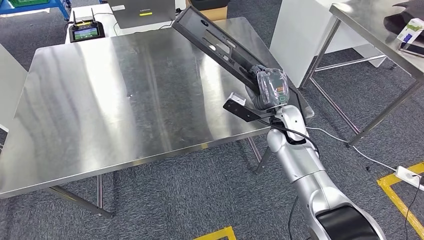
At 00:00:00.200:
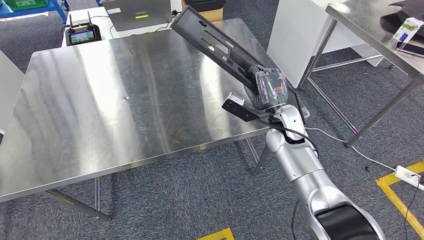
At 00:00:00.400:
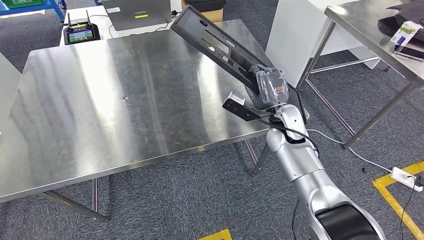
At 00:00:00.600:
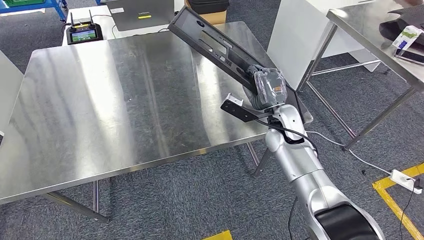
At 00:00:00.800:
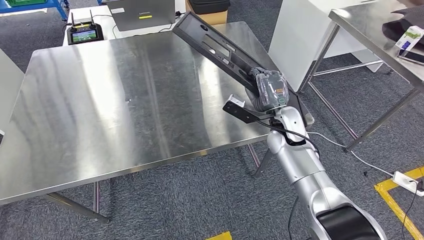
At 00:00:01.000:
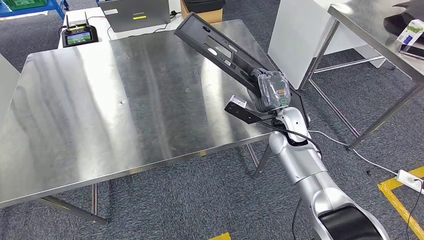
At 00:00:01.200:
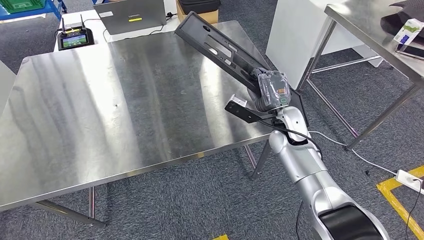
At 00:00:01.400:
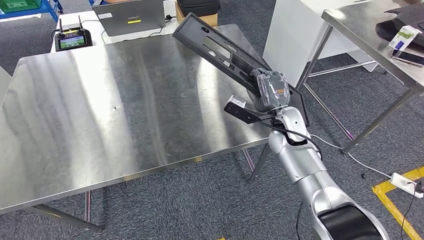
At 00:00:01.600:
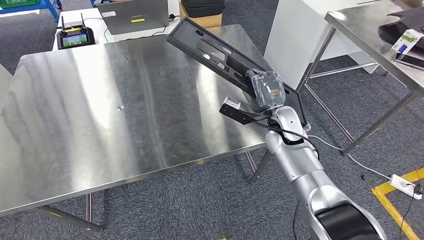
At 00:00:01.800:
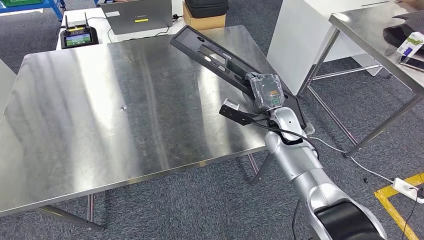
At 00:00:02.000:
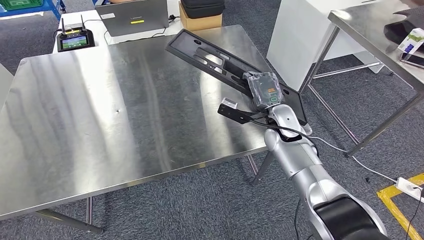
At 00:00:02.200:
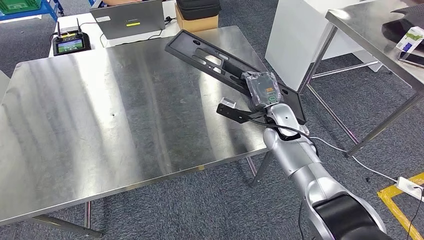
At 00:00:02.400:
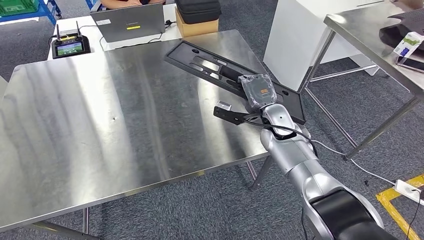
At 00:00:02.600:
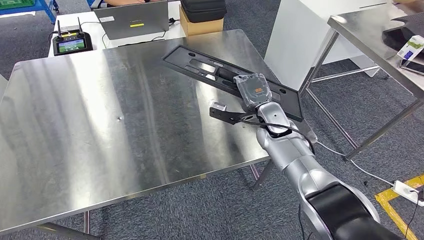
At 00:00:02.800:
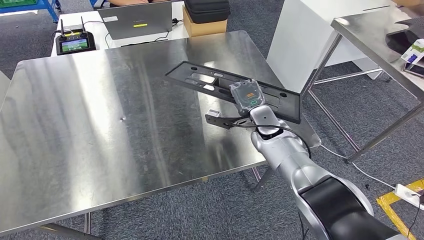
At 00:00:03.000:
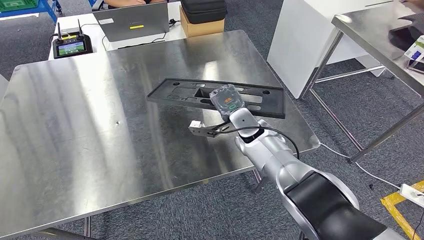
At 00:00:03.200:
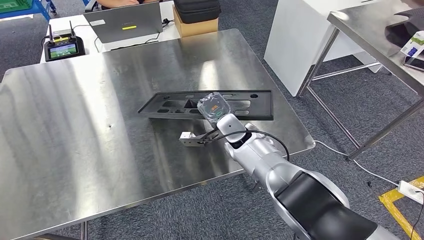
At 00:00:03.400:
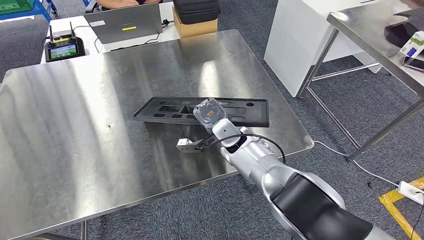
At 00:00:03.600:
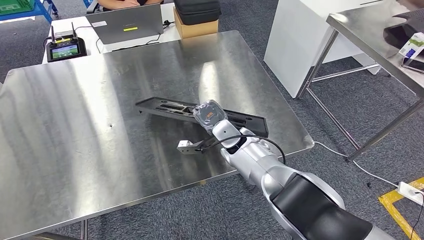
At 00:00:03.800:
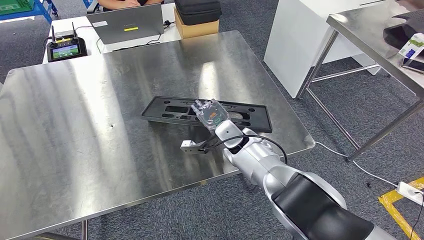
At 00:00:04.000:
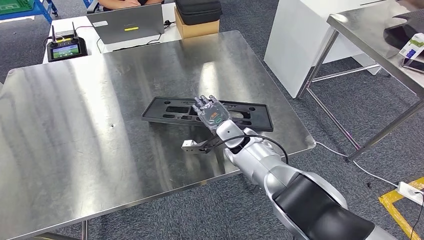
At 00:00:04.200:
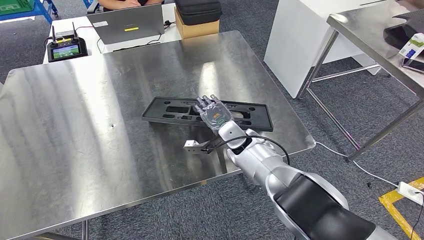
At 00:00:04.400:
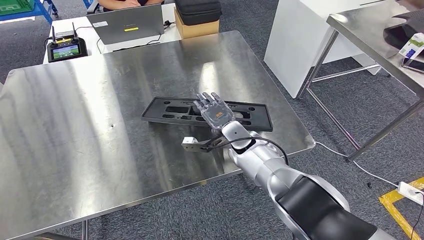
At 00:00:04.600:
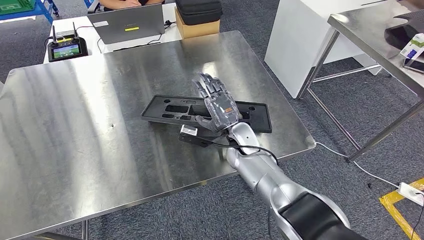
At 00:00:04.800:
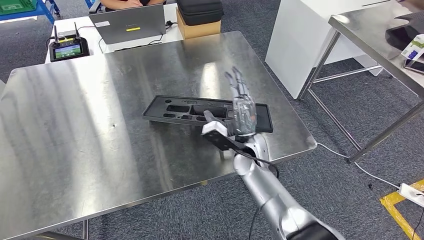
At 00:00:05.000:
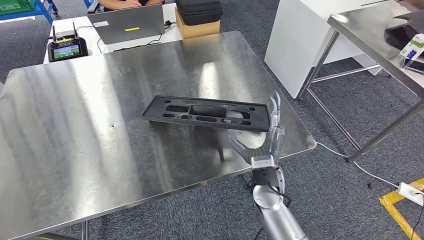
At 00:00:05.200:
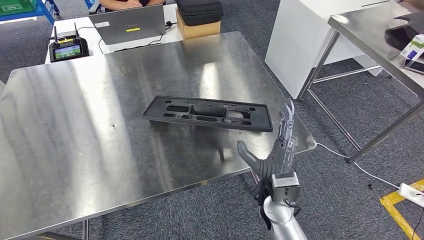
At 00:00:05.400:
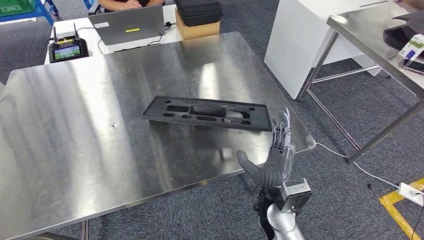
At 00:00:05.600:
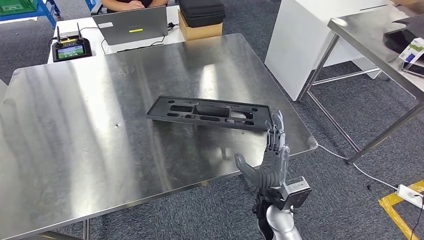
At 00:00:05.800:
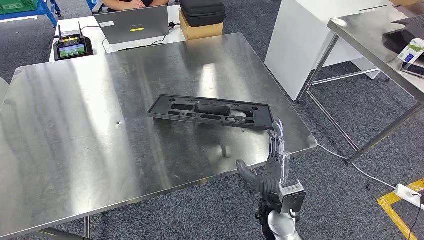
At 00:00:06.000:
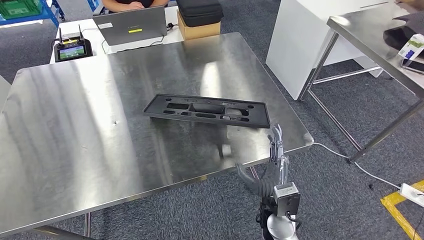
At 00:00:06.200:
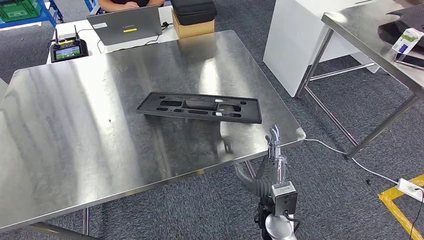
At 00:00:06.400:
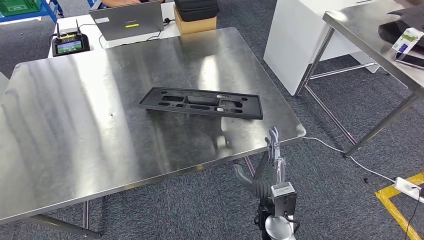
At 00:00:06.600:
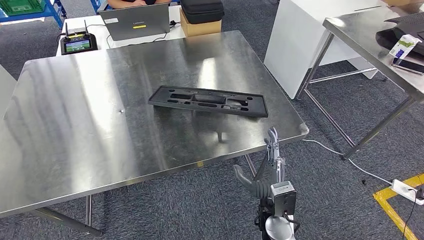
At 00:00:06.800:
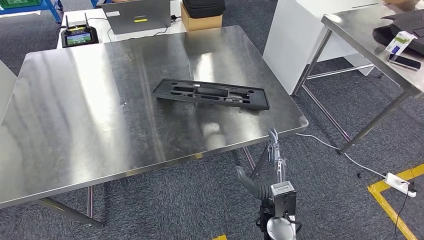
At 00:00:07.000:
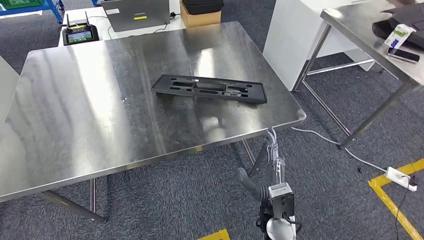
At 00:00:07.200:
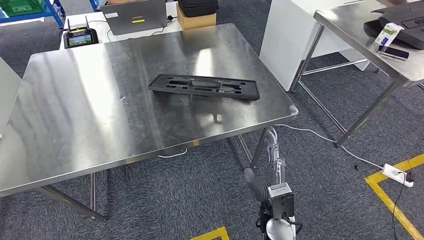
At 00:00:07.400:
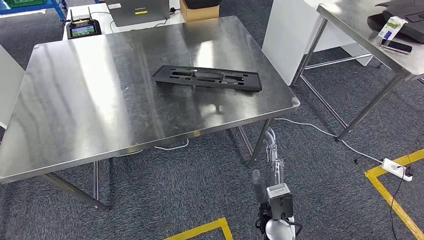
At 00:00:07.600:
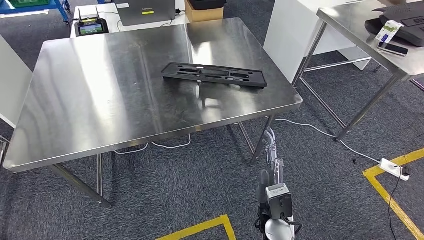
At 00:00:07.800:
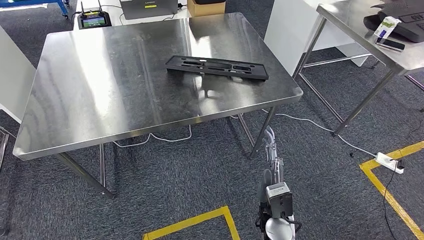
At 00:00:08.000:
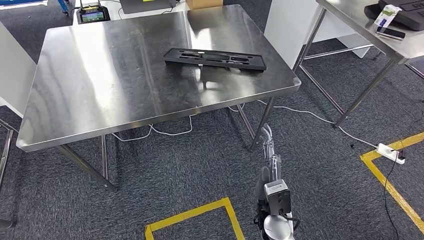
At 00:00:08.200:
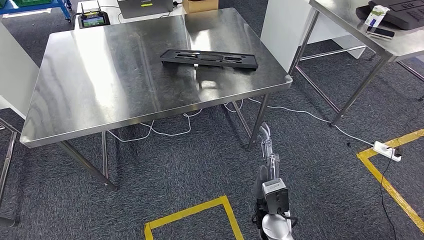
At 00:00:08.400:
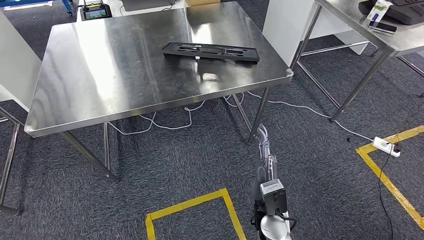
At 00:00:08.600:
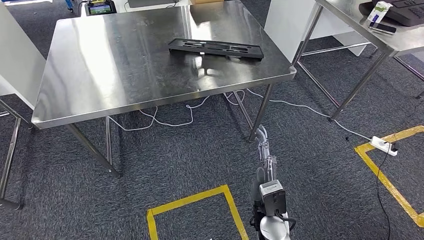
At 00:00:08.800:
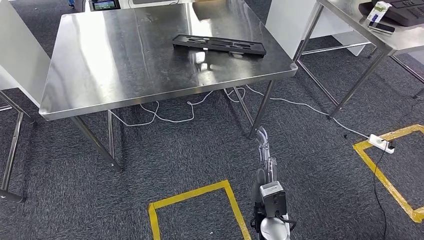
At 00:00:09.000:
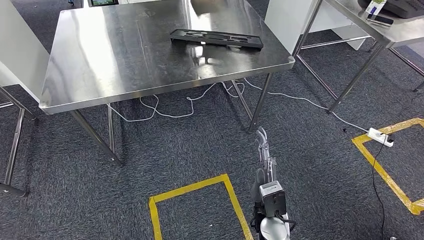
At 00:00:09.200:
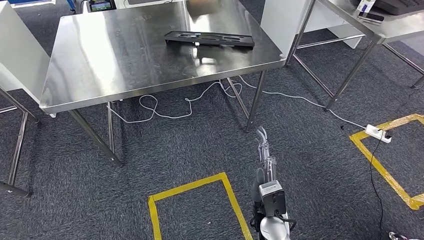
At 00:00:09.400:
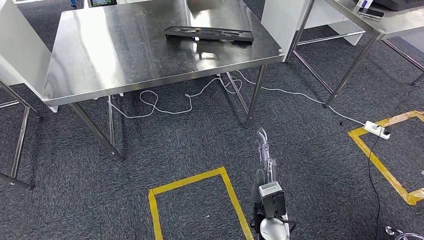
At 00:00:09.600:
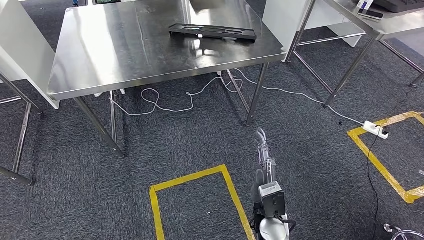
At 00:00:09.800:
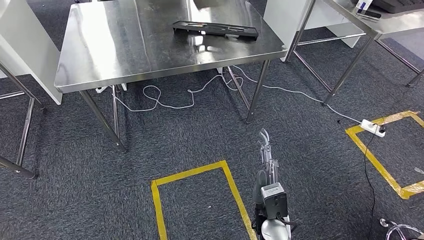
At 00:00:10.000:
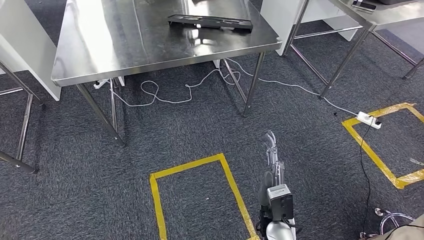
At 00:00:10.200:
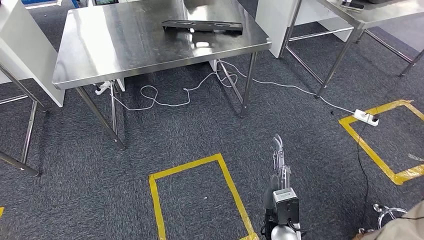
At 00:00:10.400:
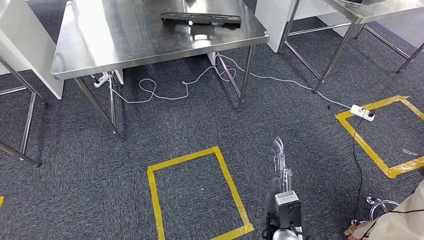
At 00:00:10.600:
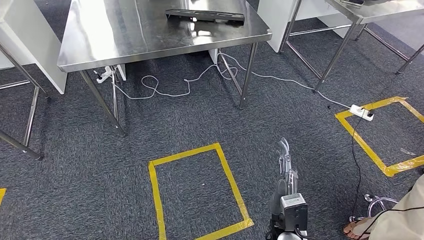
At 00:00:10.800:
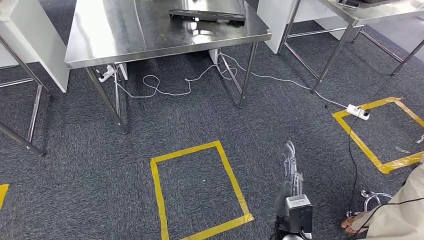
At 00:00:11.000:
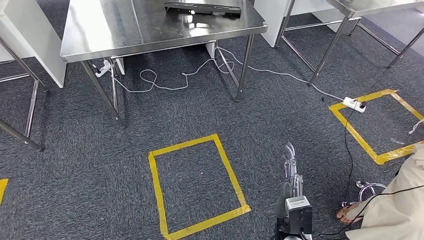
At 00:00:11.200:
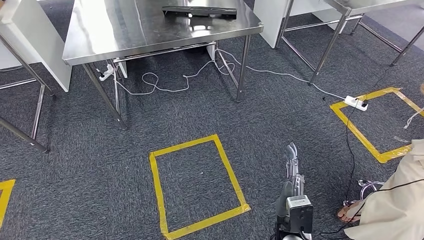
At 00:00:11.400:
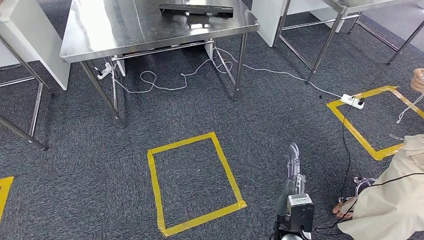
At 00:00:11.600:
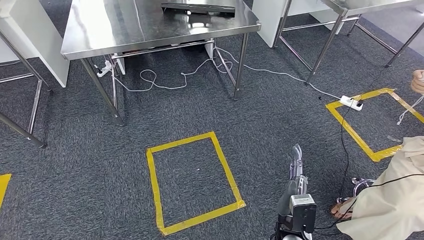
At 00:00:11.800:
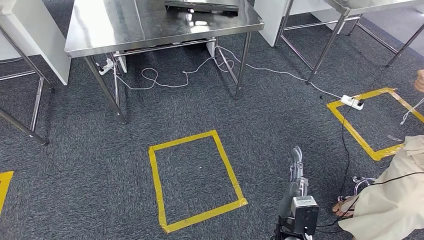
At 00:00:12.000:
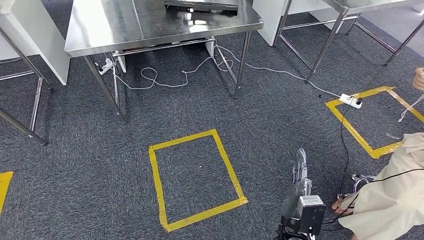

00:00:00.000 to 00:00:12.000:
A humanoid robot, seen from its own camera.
Step, 00:00:00.000 to 00:00:09.000: Insert the large material into the corresponding slot on the workbench.

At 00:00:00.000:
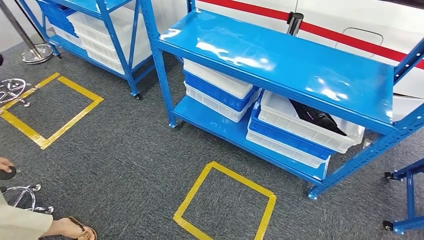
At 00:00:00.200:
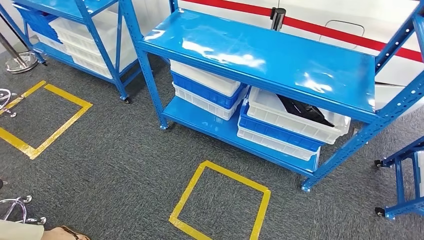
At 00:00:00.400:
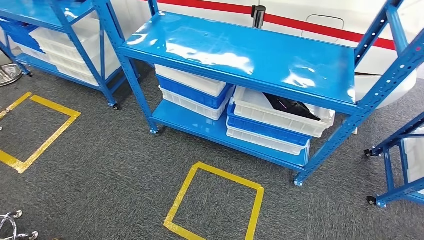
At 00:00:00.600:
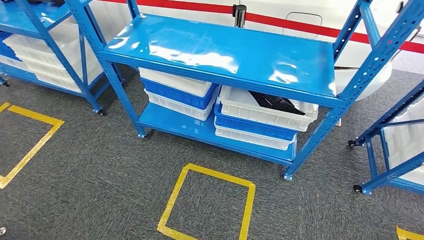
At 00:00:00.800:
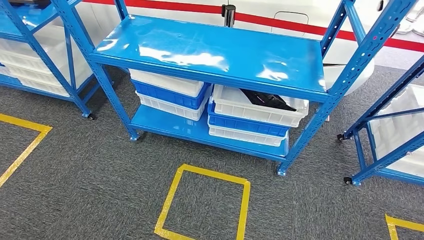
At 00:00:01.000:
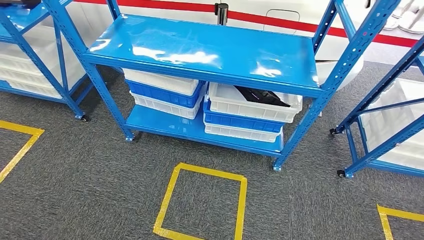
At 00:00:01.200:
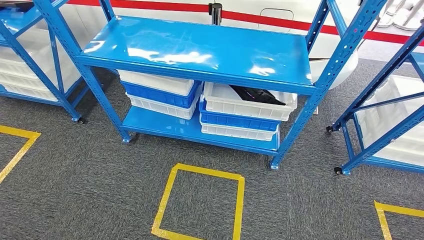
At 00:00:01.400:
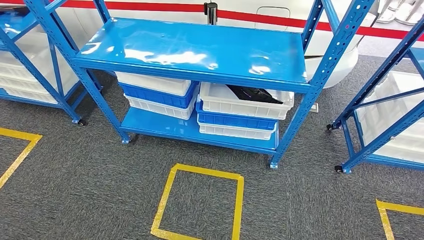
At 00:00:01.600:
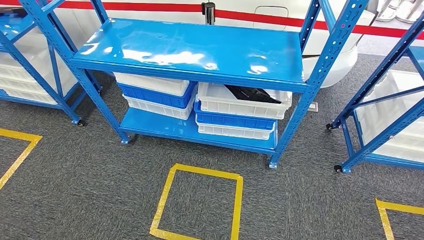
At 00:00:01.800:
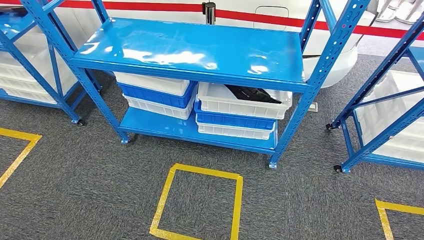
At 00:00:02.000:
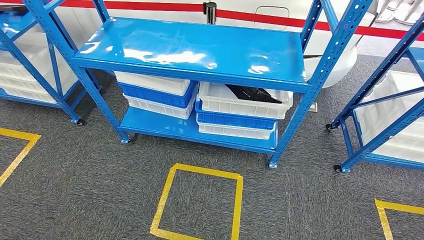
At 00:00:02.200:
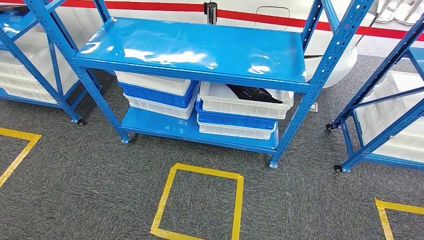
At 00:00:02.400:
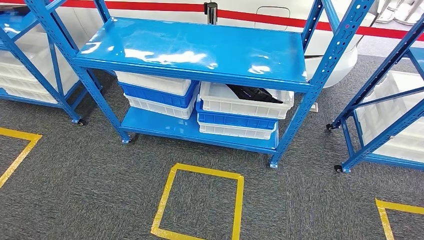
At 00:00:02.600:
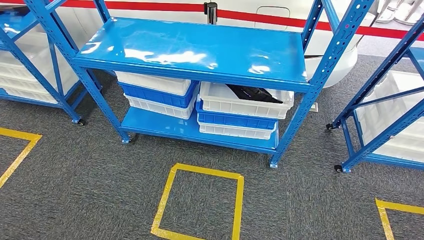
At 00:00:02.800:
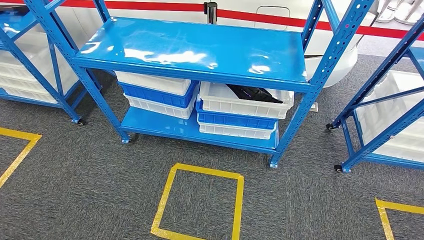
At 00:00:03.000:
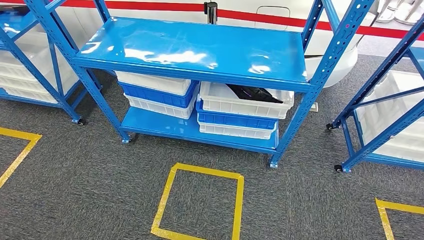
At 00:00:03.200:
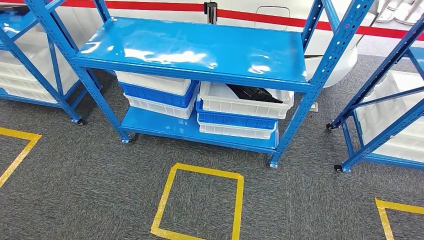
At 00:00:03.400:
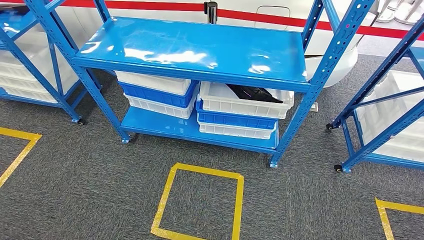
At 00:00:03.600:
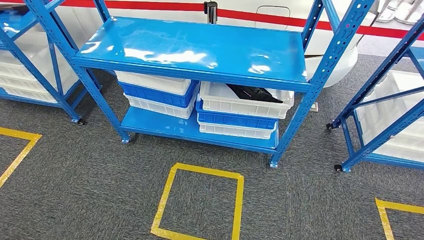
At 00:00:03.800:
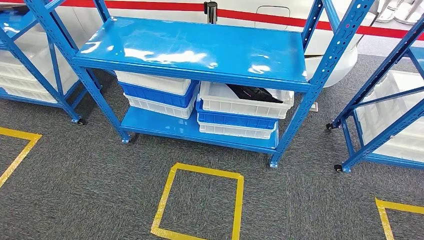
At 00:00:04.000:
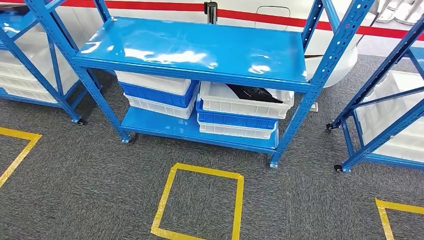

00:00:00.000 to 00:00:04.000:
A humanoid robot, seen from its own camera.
Step, 00:00:00.000 to 00:00:03.800: Move to the initial position of the shelf.
00:00:01.400 to 00:00:02.600: The hands make only small movements.
